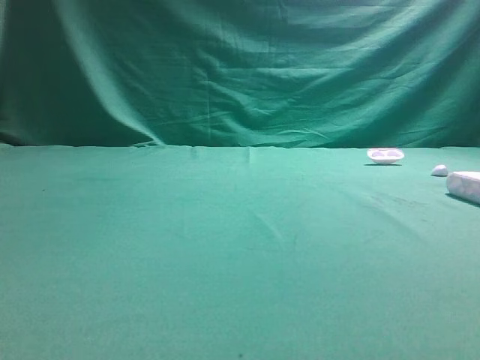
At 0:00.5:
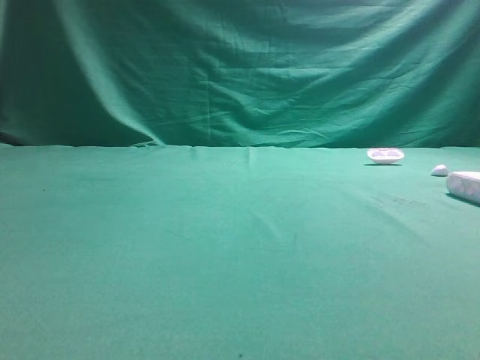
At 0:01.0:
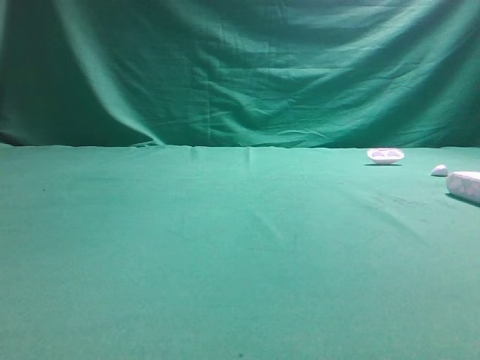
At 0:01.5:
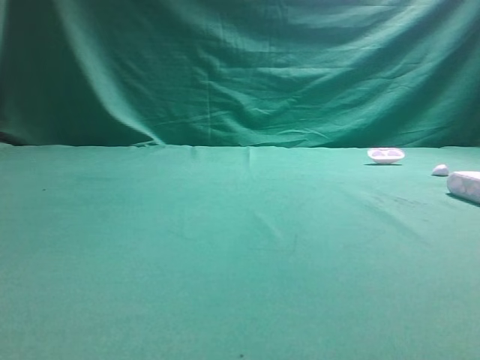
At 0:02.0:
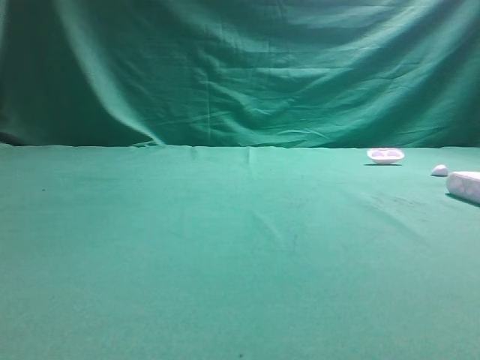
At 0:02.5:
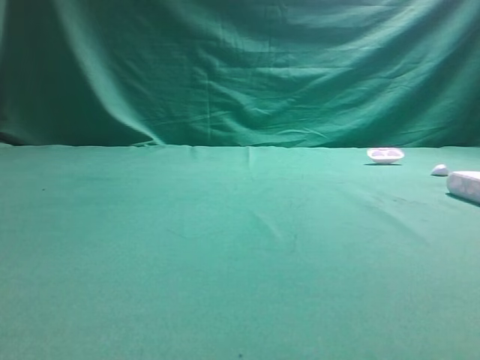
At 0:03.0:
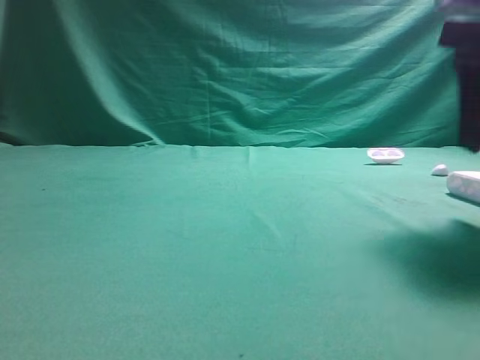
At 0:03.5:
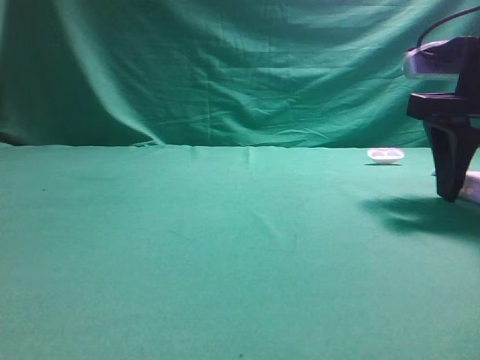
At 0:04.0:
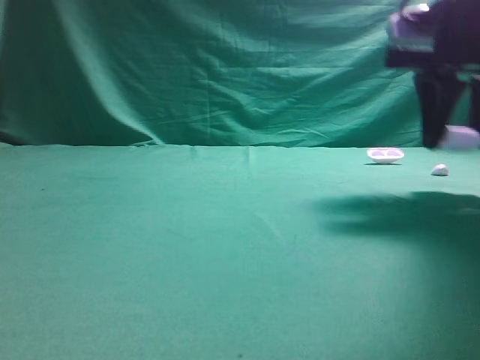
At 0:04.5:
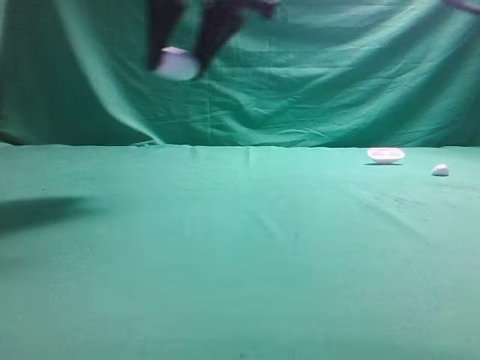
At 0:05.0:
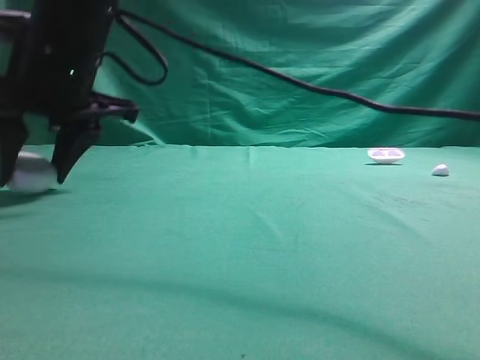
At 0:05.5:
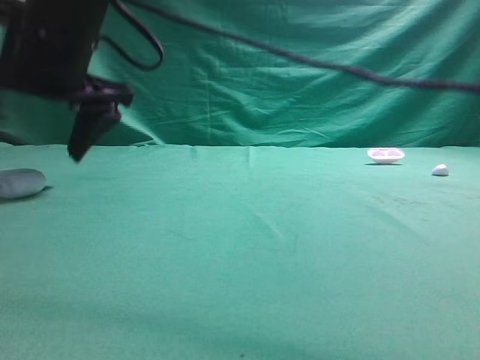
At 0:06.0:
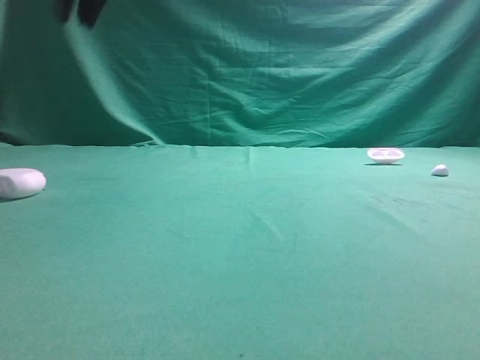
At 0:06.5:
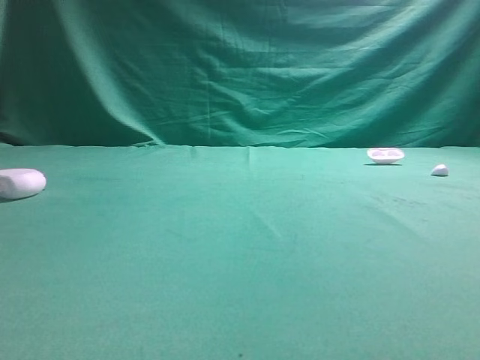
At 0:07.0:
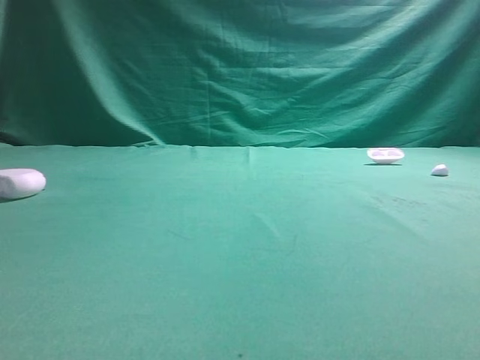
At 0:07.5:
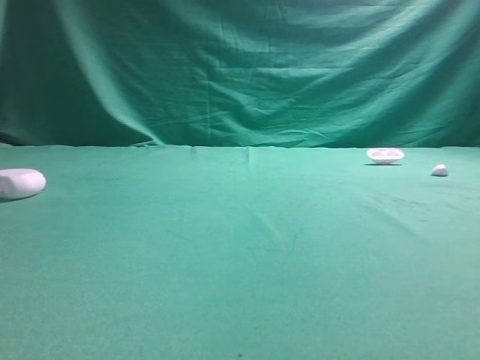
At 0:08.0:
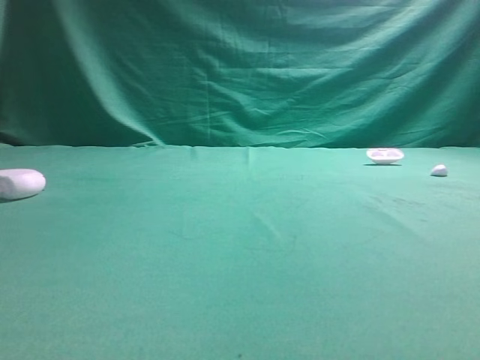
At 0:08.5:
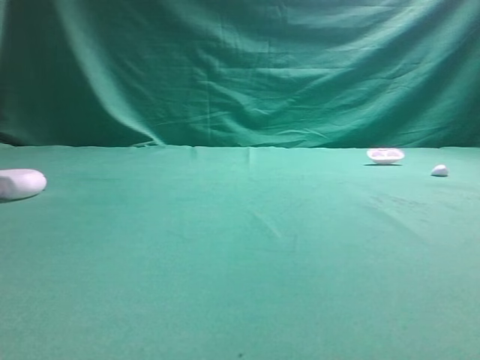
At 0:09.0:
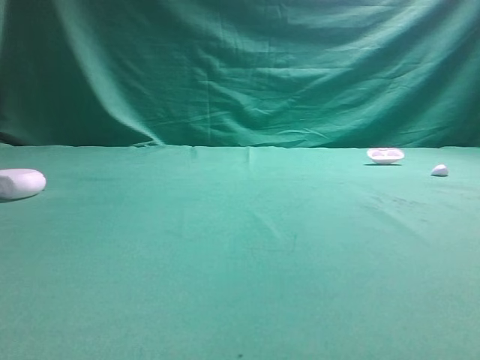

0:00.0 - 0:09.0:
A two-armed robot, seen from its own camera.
Step, 0:00.0 - 0:04.0: Grasp the Bluetooth earphone case.
Step, 0:04.5 - 0:05.5: Place bluetooth earphone case on the left side of the table.

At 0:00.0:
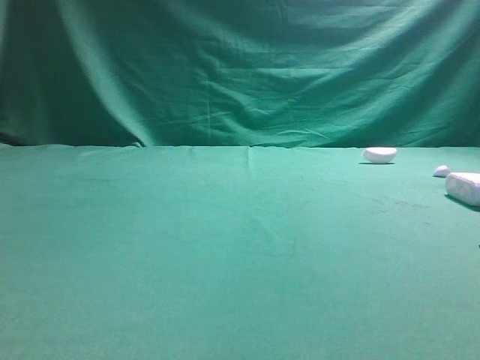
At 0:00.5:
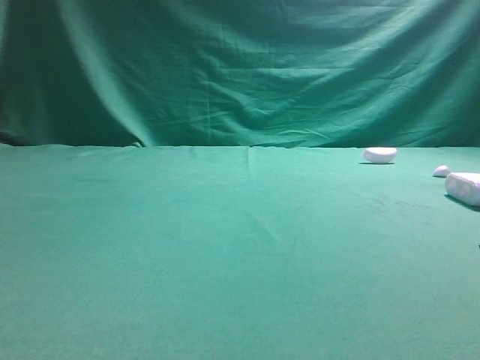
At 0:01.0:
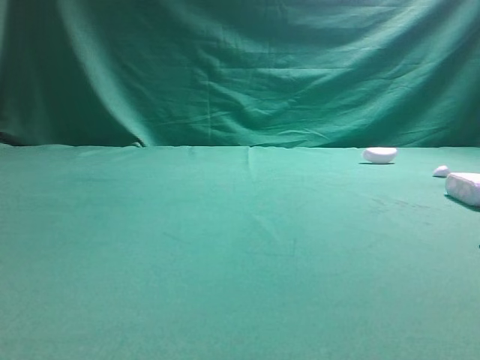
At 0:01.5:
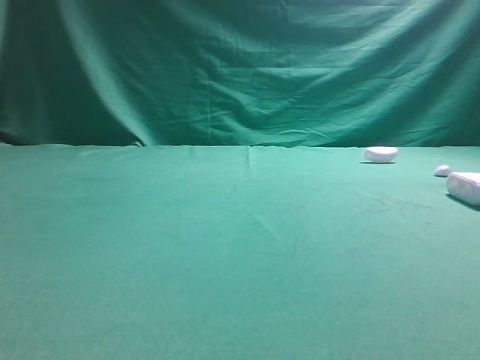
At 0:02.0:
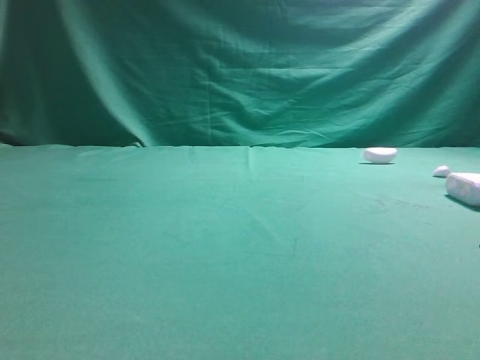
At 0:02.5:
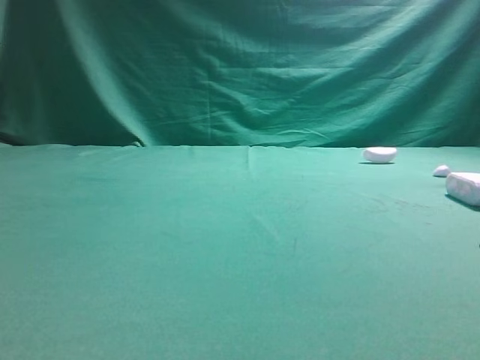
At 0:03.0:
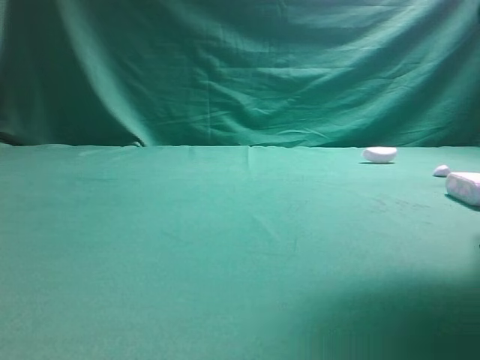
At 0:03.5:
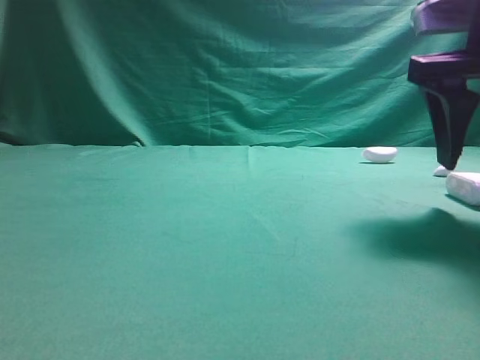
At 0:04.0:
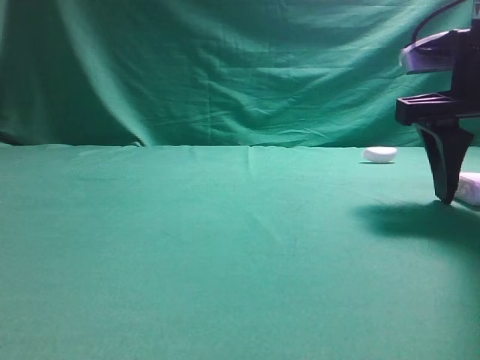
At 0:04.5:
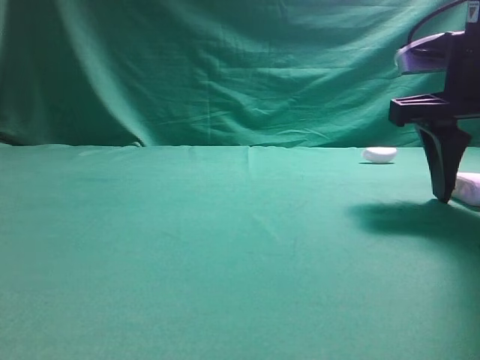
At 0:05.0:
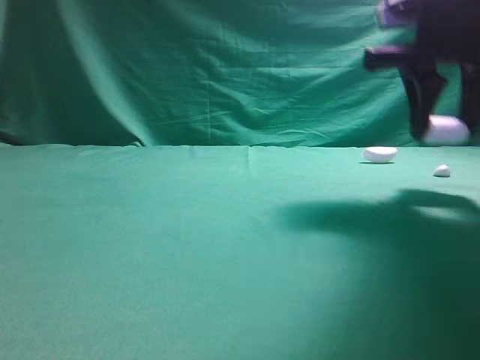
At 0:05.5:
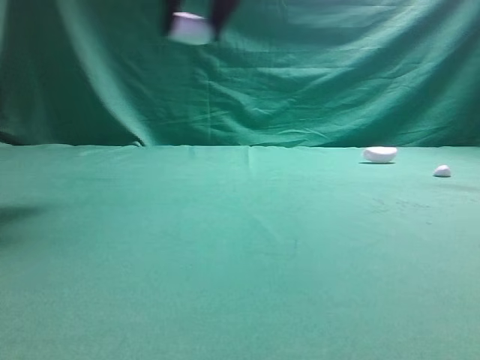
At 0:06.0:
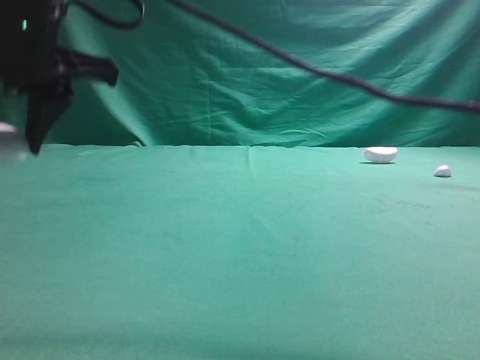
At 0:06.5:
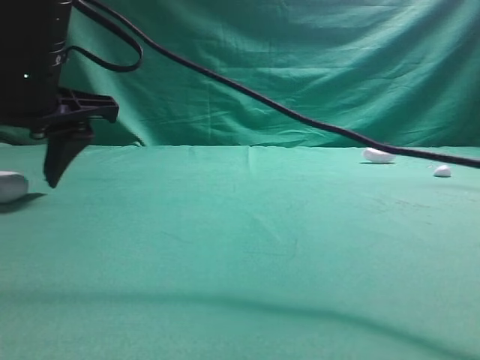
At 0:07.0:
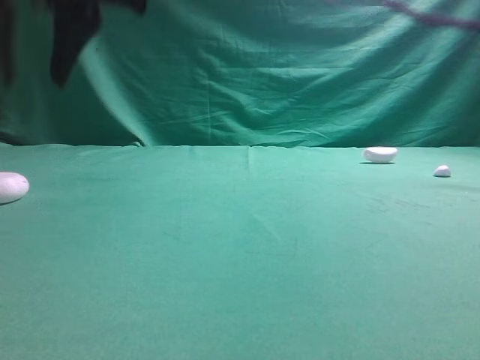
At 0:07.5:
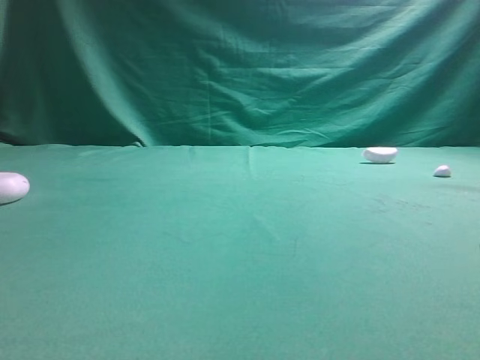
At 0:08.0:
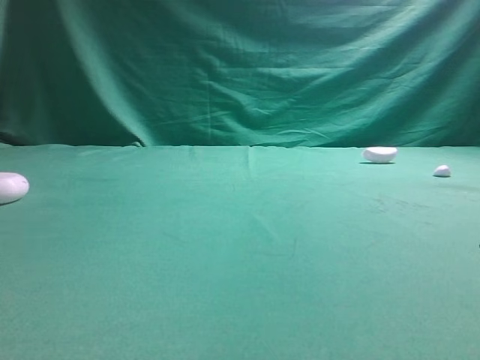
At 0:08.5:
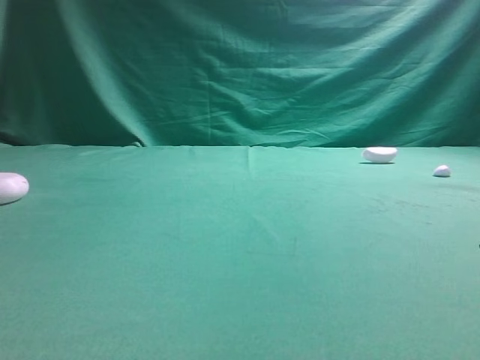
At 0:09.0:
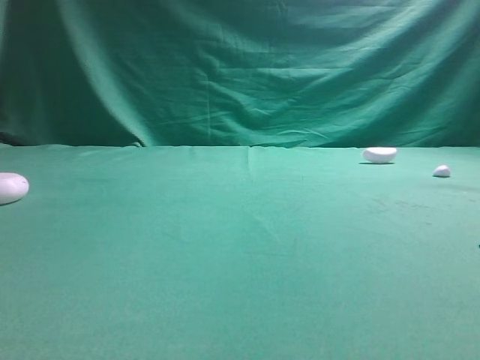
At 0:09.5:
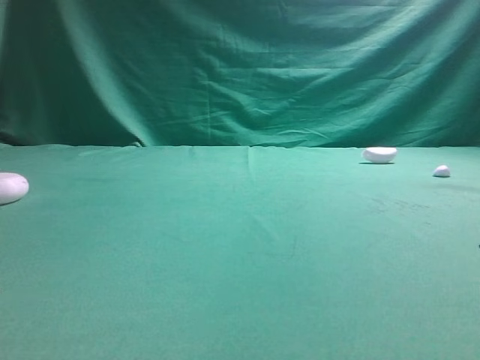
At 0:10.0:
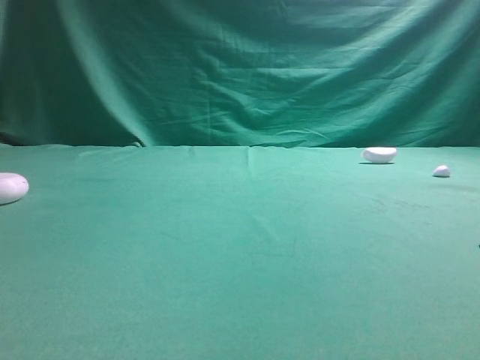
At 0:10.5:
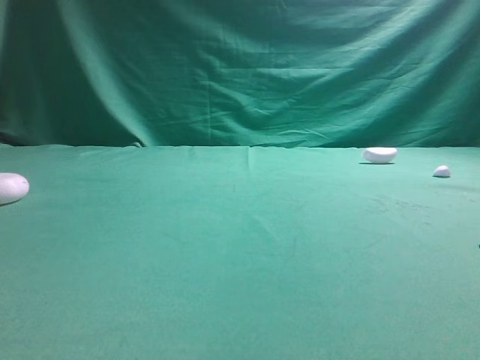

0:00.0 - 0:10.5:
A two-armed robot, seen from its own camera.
Step, 0:00.0 - 0:05.0: Grasp the Bluetooth earphone case.
Step, 0:05.5 - 0:06.5: Place bluetooth earphone case on the left side of the table.

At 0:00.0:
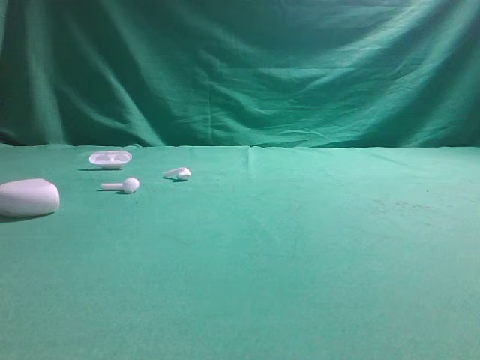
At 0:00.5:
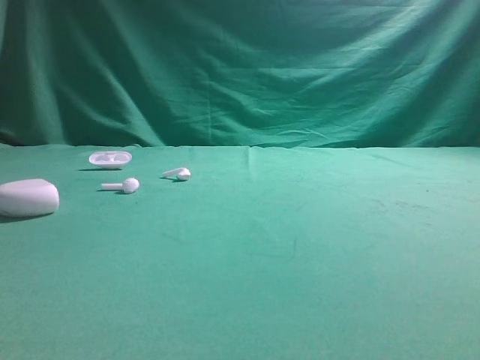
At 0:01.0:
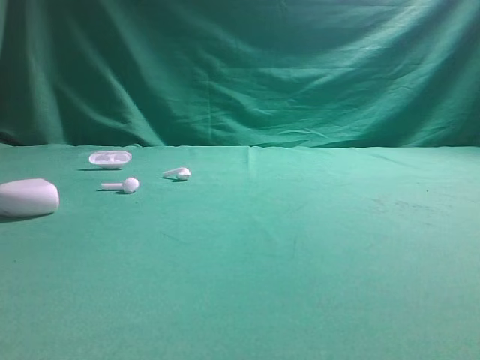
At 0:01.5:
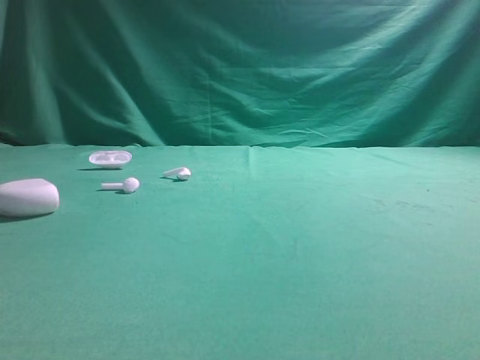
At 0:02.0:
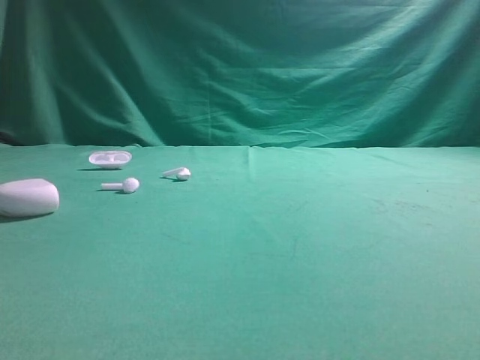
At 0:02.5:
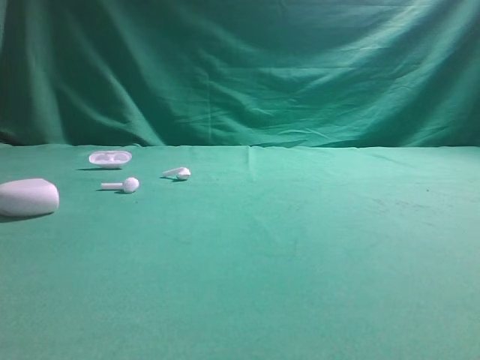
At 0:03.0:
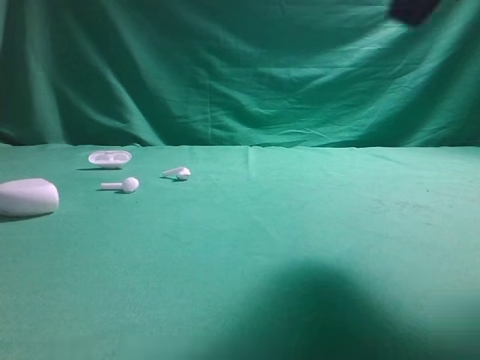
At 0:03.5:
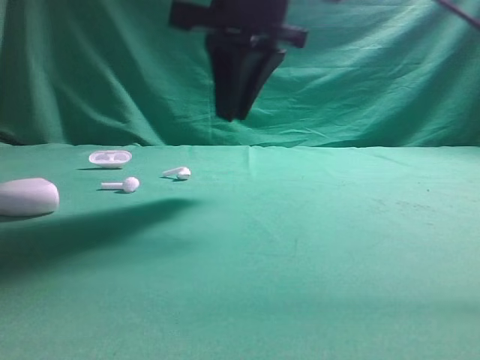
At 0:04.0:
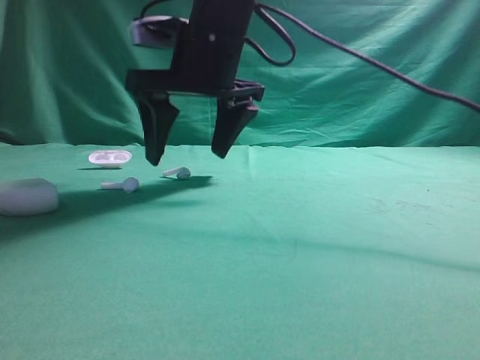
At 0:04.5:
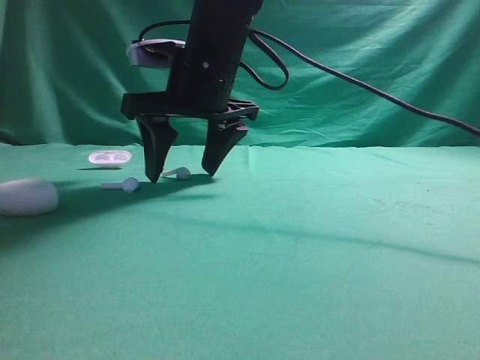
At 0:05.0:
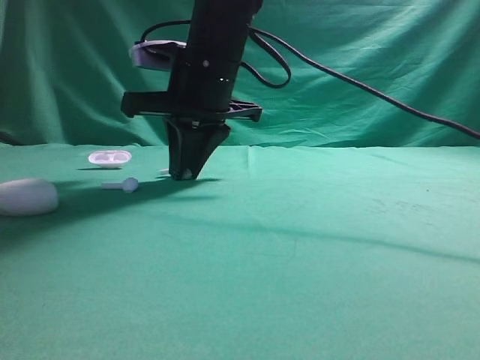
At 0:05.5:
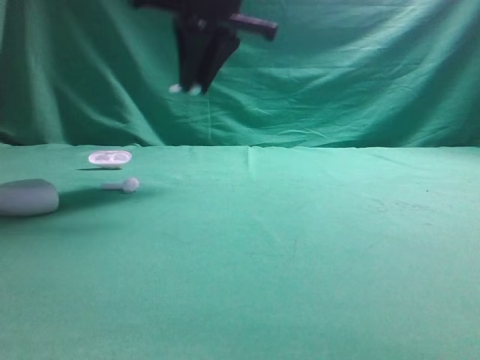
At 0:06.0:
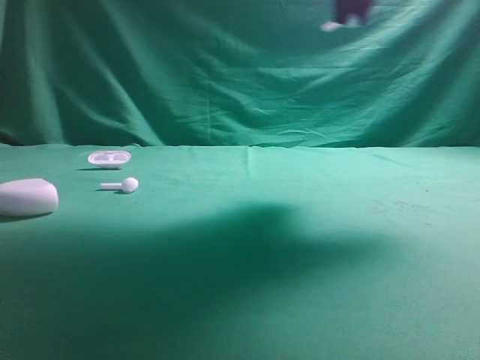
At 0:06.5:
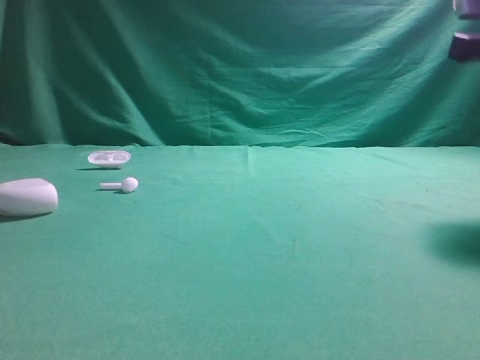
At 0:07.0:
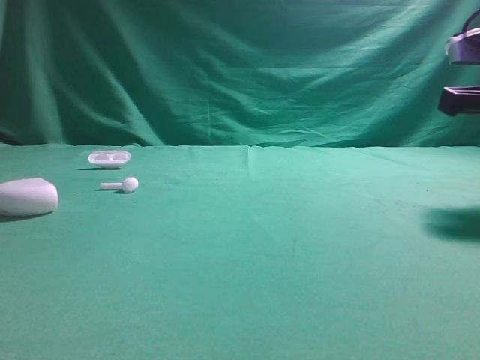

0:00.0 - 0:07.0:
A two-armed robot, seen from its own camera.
Step, 0:00.0 - 0:04.0: Grasp the Bluetooth earbud.
Step, 0:04.5 - 0:06.0: Place bluetooth earbud on the right side of the table.
